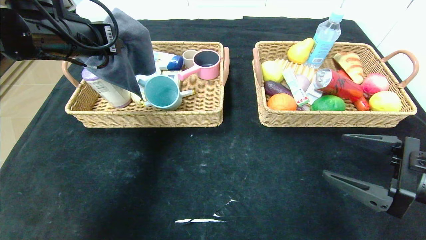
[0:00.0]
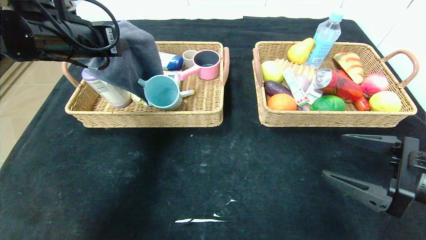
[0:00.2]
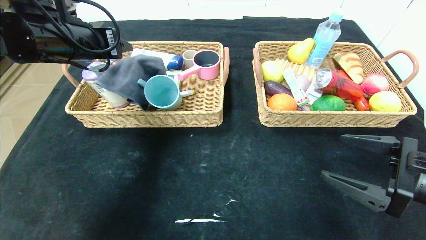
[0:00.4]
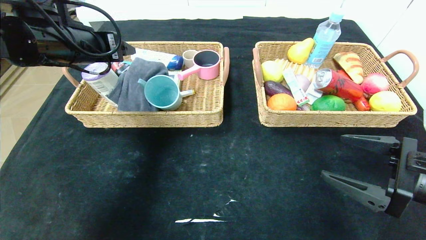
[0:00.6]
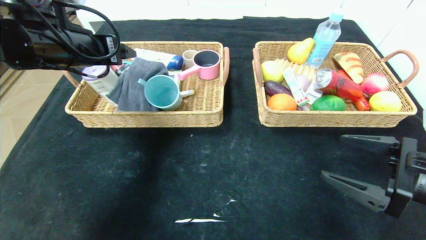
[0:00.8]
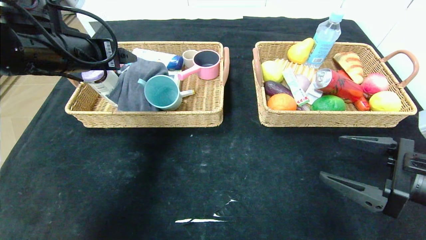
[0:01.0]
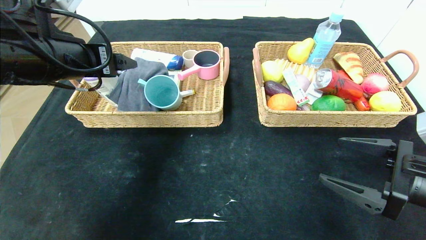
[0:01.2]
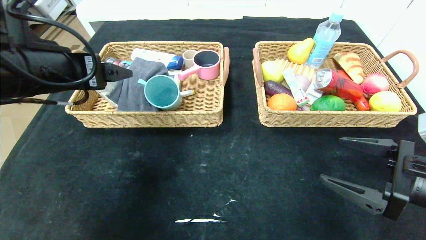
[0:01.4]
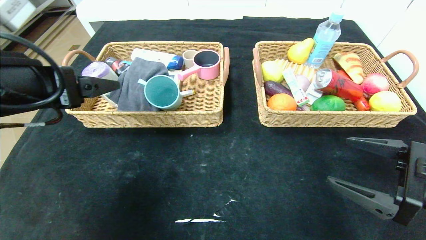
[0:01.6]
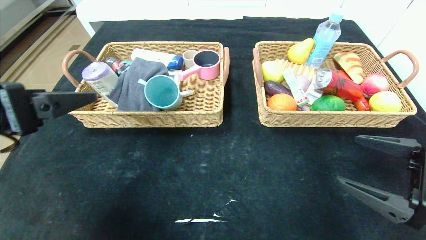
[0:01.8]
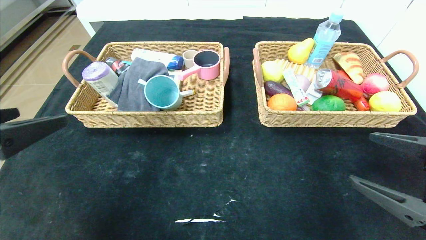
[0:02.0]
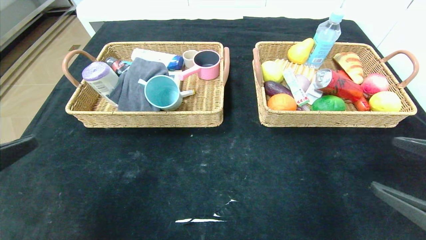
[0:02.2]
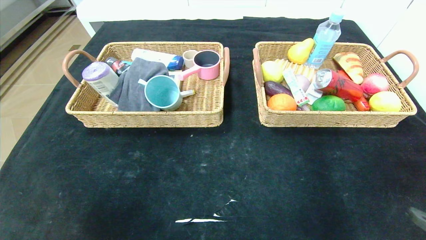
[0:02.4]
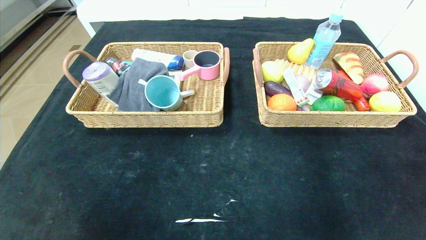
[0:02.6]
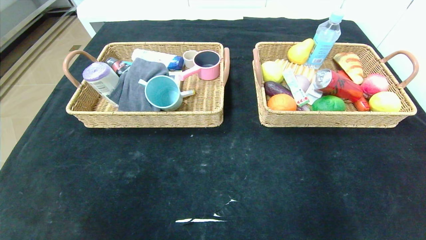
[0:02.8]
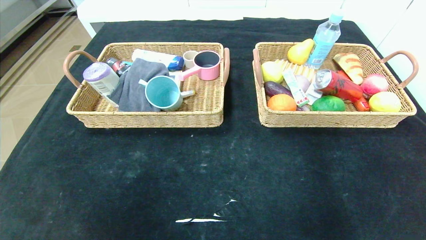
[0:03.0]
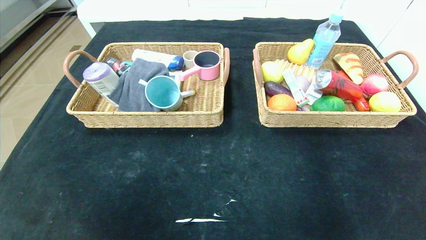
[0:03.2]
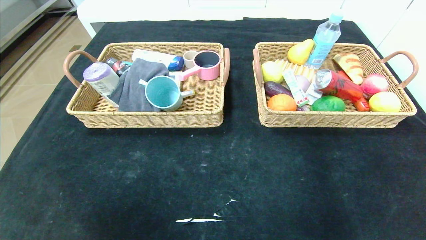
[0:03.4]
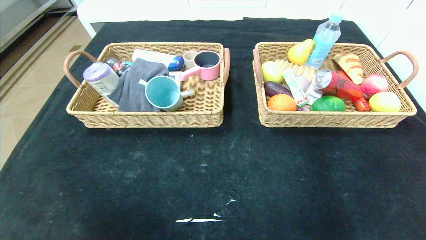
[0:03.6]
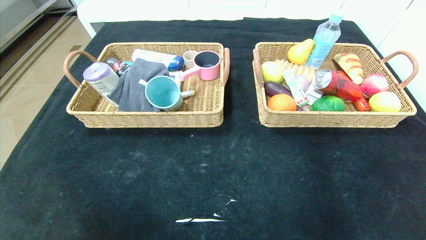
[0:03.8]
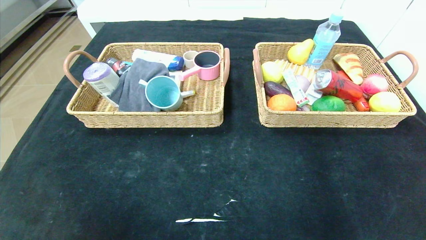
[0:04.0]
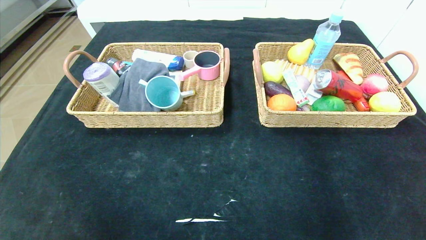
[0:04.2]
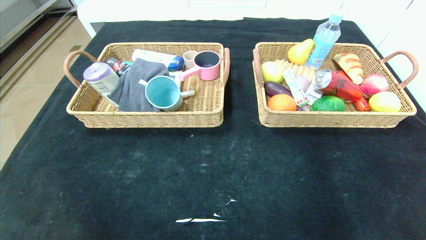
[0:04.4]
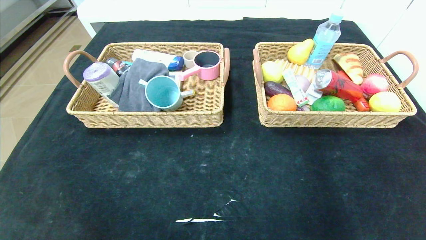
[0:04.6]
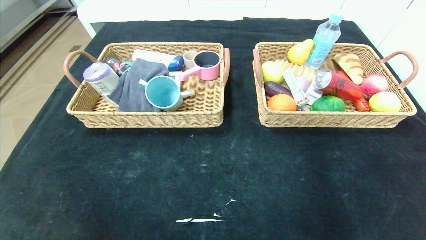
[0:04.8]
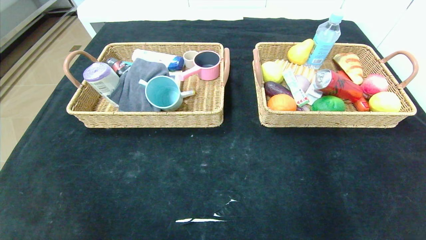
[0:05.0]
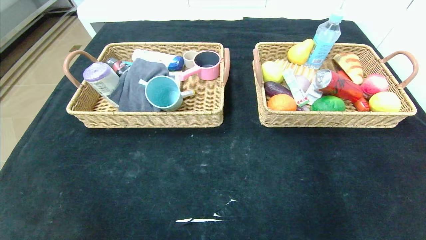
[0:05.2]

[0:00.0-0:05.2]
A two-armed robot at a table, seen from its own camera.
0:00.0 to 0:01.8: The left gripper travels backward by approximately 15 cm, and opens up.
0:01.8 to 0:03.4: The right gripper heads backward, covering some 25 cm. Meanwhile the left gripper heads backward and downward, covering about 25 cm.

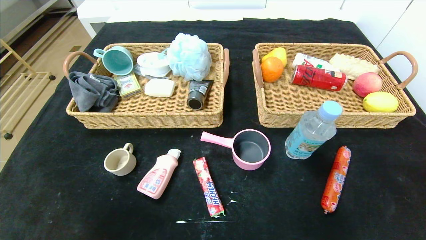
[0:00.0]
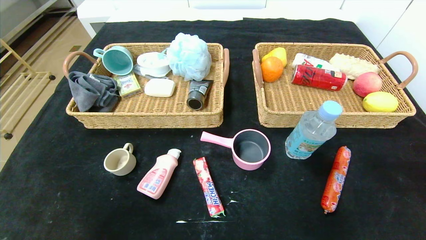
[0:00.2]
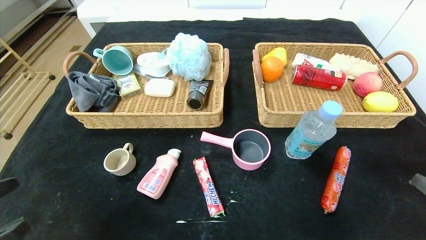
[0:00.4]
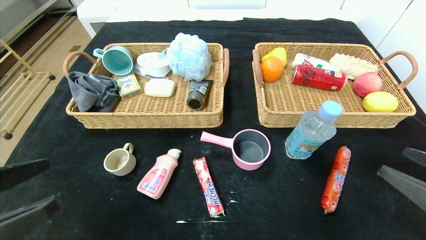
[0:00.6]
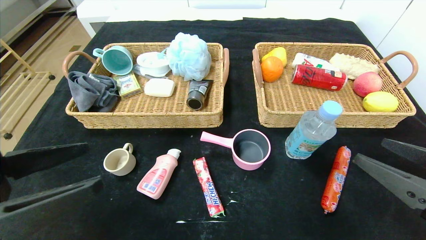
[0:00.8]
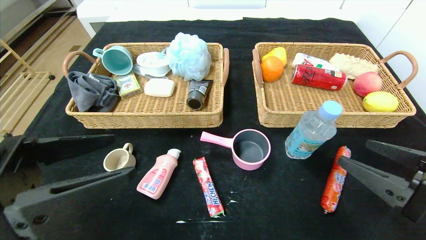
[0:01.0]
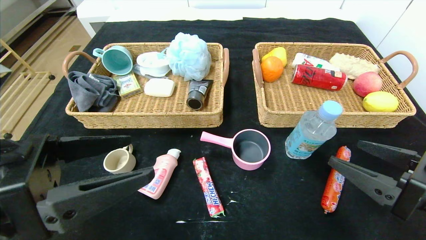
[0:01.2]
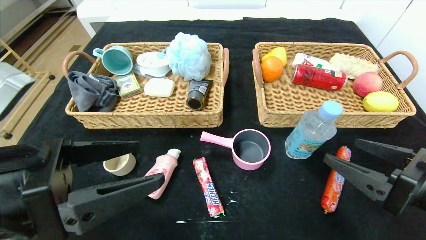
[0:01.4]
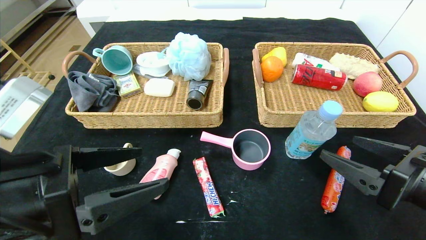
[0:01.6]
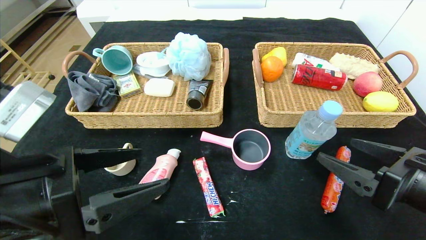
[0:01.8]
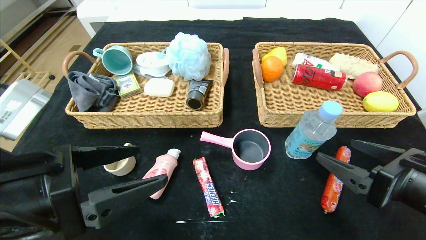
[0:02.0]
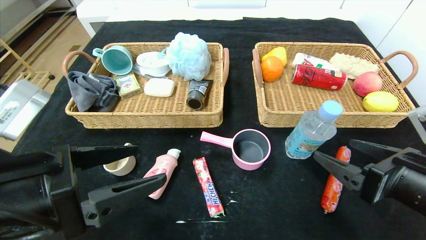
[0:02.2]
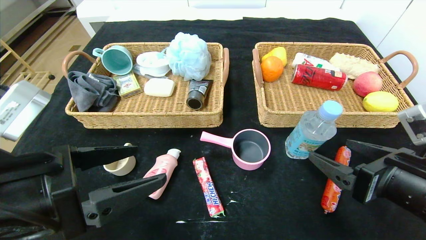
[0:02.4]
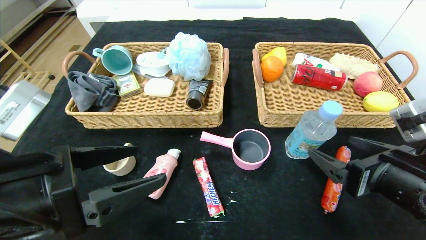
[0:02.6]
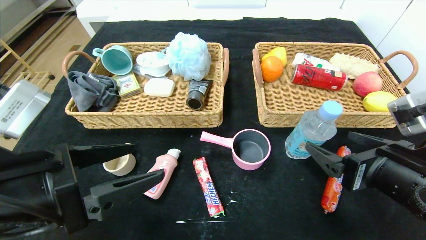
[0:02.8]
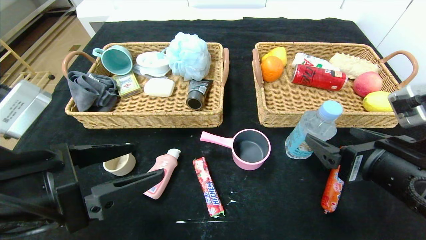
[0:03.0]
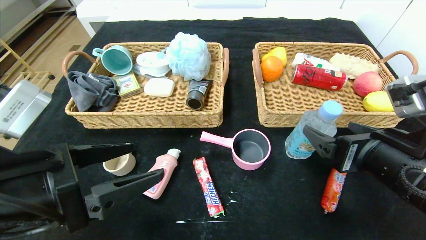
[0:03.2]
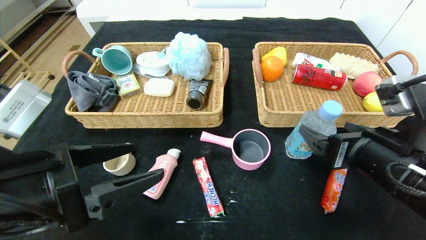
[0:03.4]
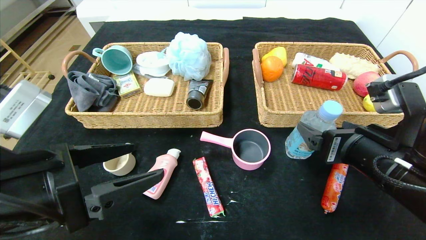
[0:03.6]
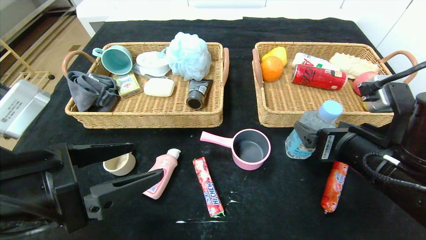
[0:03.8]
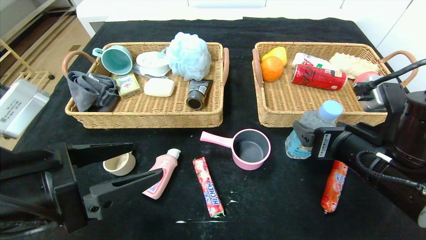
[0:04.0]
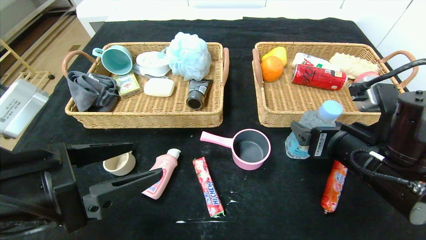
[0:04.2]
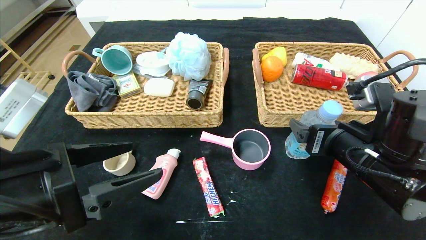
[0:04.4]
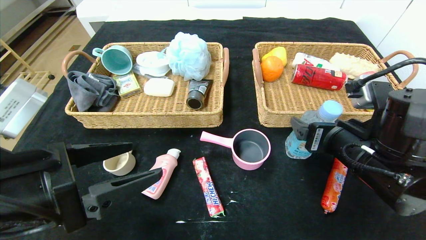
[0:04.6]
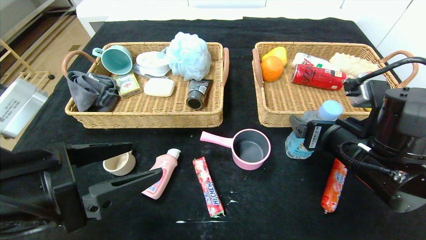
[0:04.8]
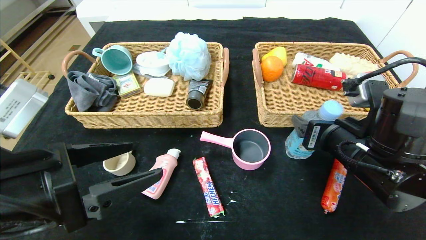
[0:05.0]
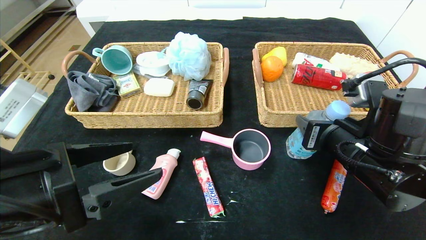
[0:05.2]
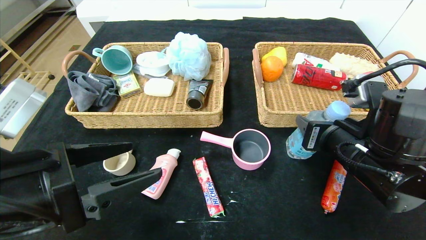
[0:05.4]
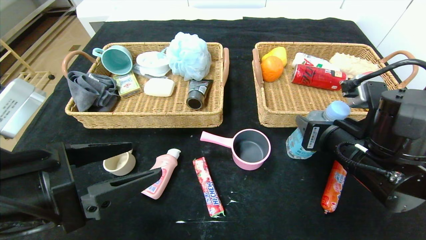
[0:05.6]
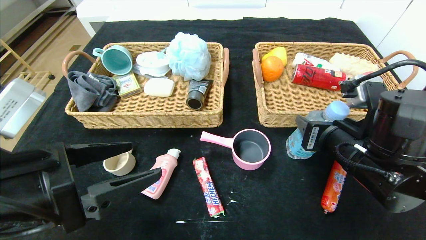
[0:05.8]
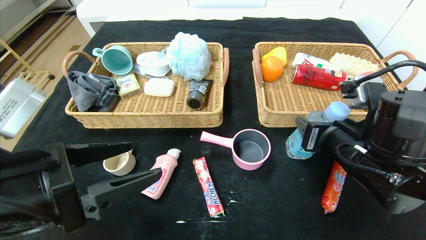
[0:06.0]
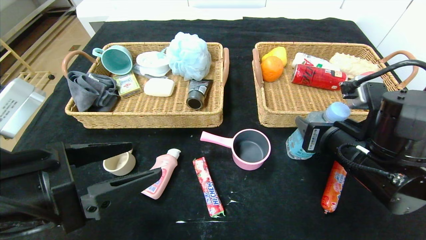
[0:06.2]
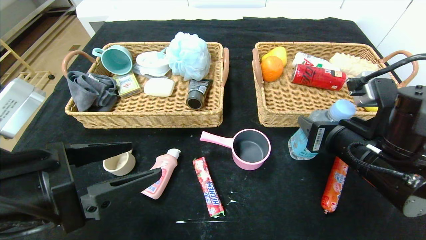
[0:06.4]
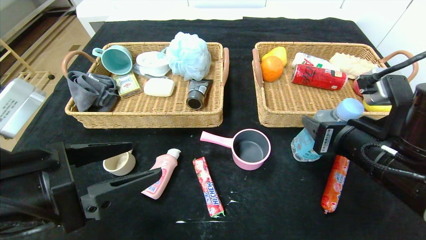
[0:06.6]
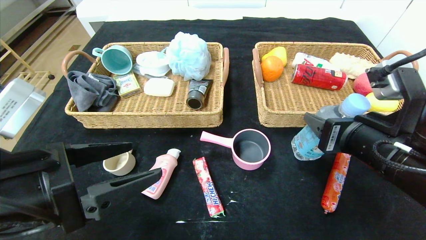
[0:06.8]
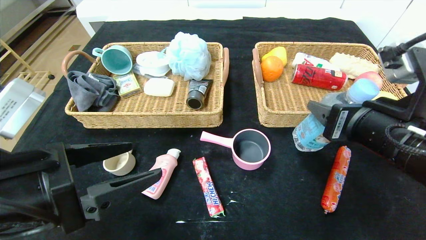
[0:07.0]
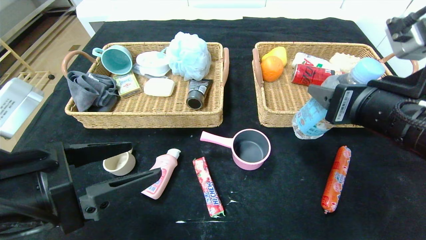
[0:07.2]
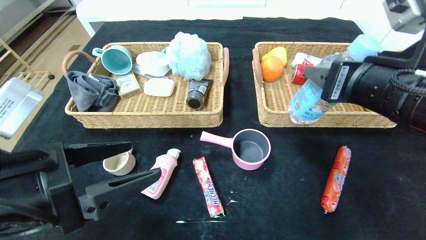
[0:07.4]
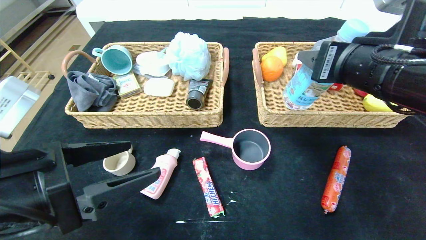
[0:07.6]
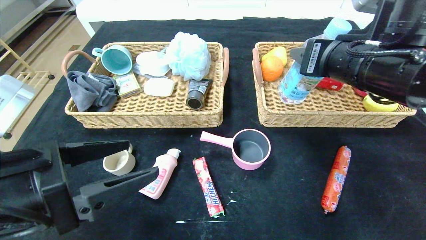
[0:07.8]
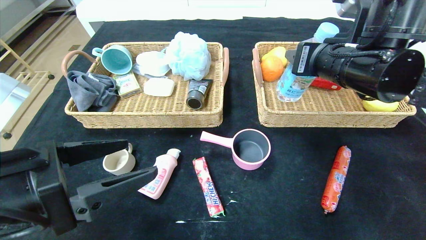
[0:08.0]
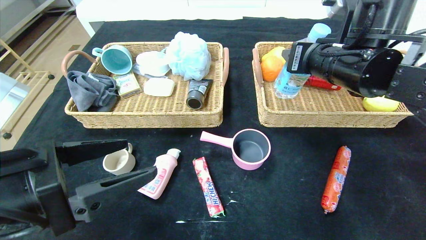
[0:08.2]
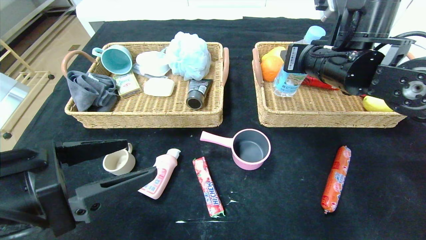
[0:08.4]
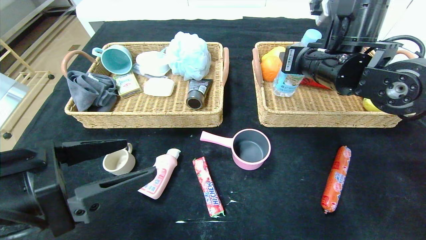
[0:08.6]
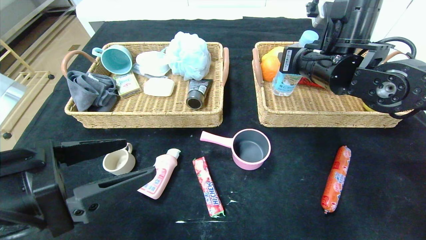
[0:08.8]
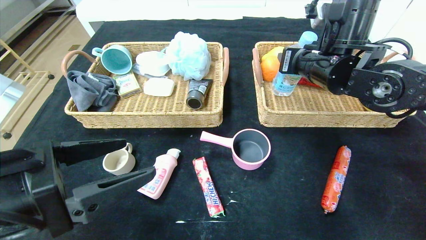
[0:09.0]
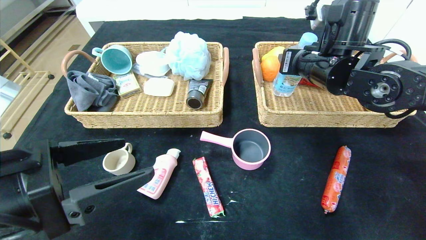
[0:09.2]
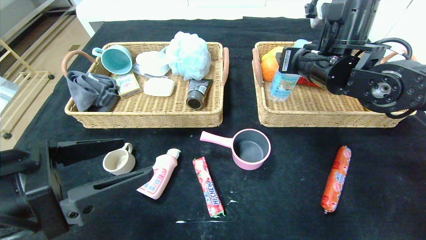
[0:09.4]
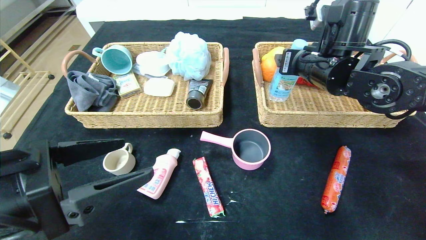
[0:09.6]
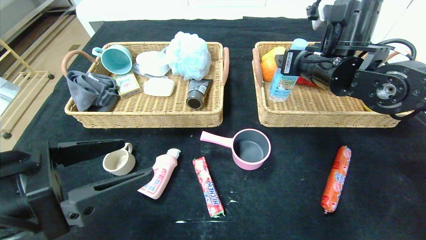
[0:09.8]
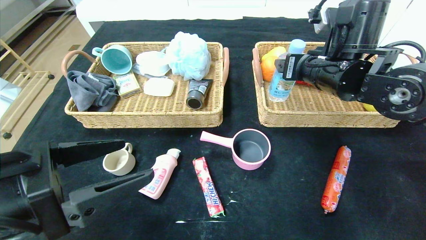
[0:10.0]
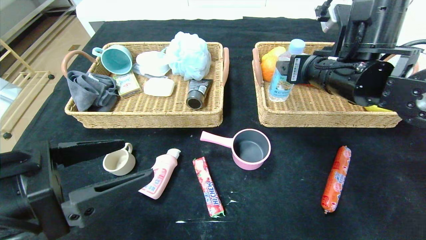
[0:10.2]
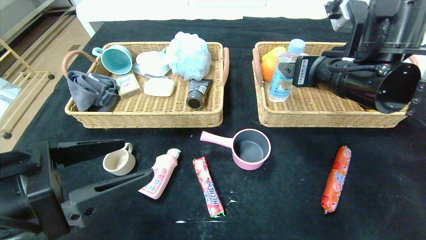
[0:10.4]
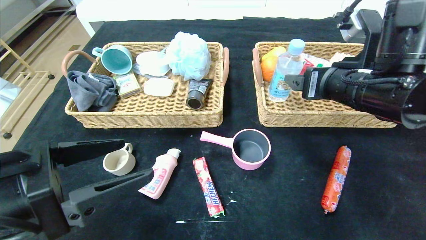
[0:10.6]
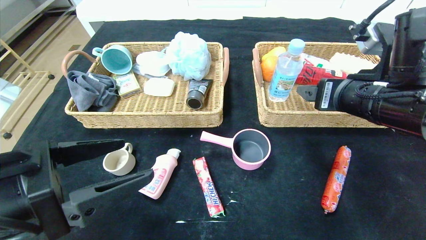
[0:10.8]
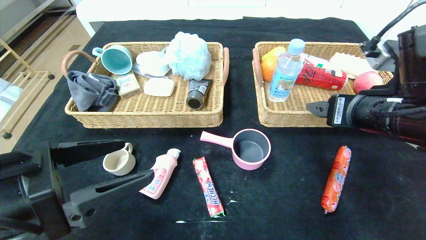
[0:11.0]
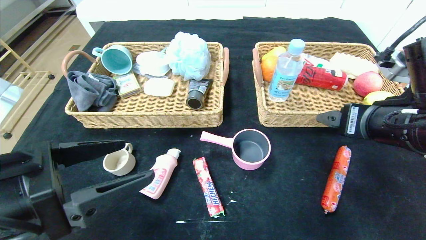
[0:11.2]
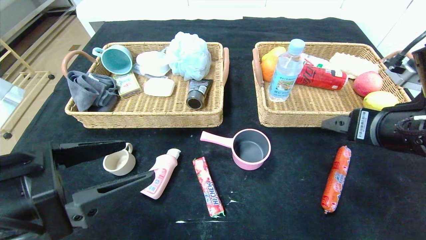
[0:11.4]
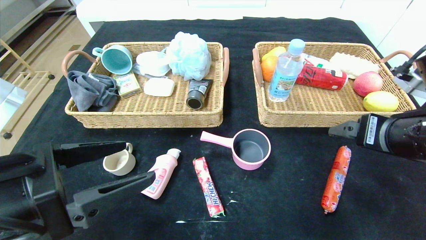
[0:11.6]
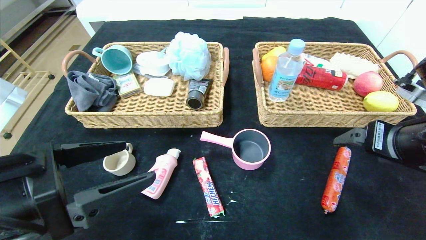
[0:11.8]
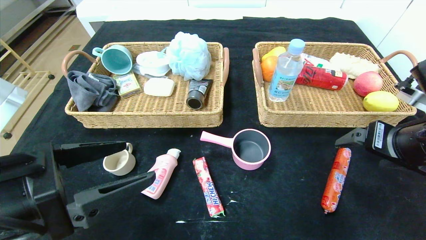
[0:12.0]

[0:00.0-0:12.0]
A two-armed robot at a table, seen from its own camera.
Step, 0:00.0 to 0:09.8: Grasp the soda water and put it in the right basket.
0:00.0 to 0:01.6: The left gripper travels forward and to the right by approximately 15 cm. The right gripper heads forward and to the left, covering some 15 cm.
0:01.6 to 0:03.0: The grippers move only a little.
0:03.0 to 0:04.4: The right gripper moves about 5 cm.
0:04.4 to 0:06.0: The right gripper closes its fingers.
0:06.0 to 0:07.6: The right gripper shifts approximately 10 cm upward.
0:07.6 to 0:09.0: The right gripper is displaced forward by roughly 10 cm.
0:09.0 to 0:10.4: The right gripper heads backward, covering about 5 cm, and opens.
0:10.4 to 0:12.0: The right gripper heads to the right and backward, covering about 10 cm.
